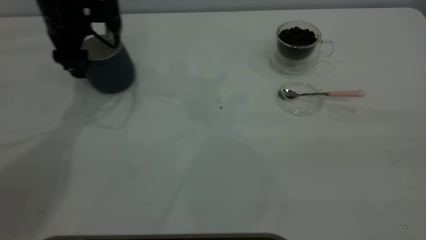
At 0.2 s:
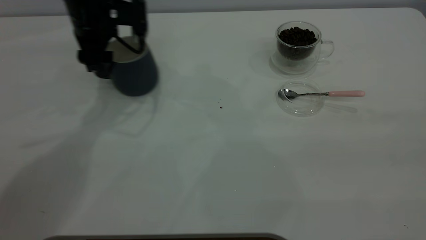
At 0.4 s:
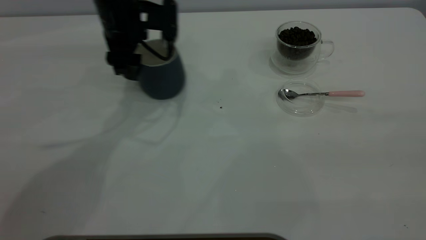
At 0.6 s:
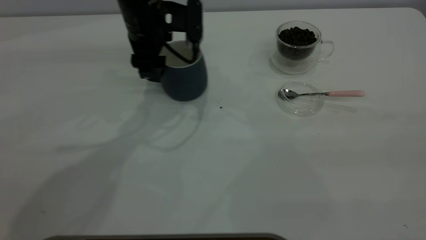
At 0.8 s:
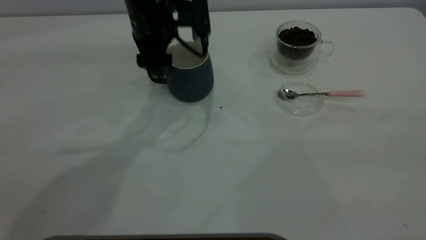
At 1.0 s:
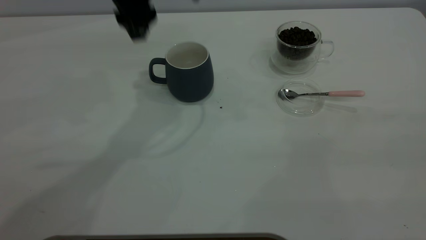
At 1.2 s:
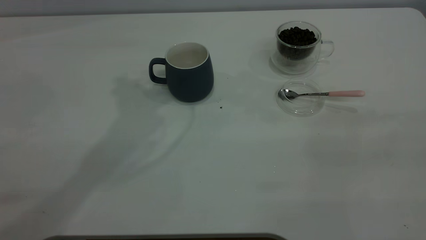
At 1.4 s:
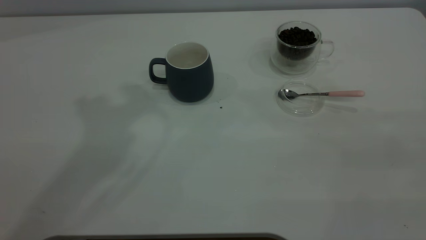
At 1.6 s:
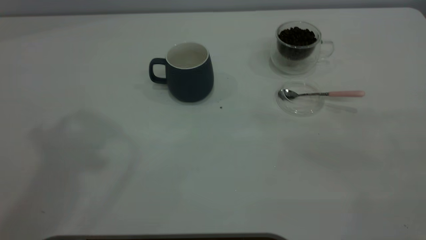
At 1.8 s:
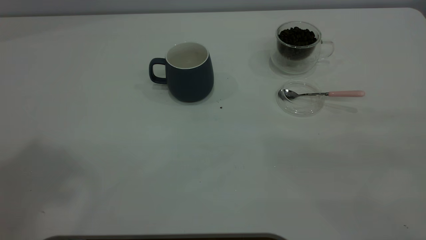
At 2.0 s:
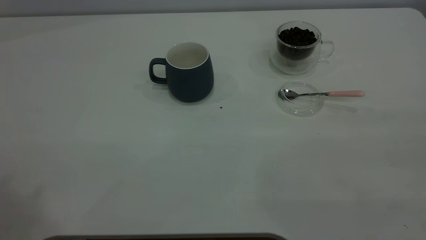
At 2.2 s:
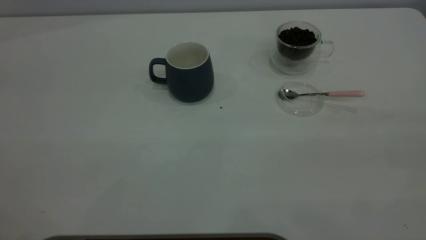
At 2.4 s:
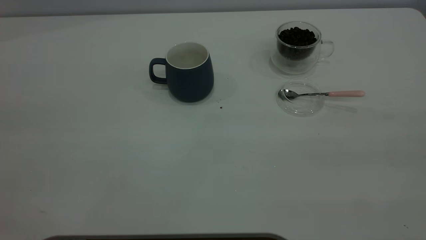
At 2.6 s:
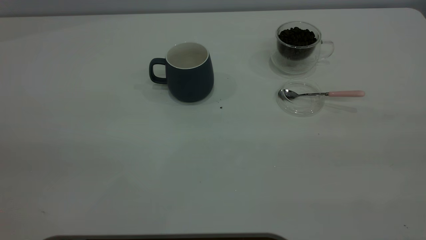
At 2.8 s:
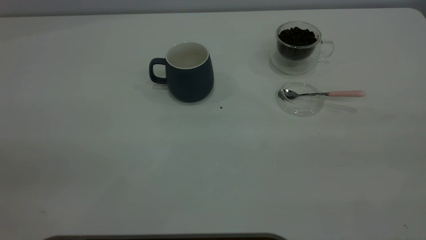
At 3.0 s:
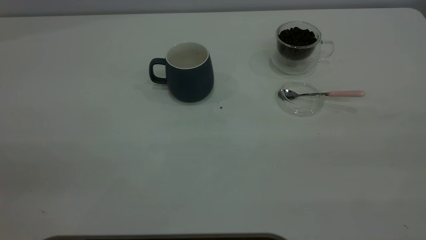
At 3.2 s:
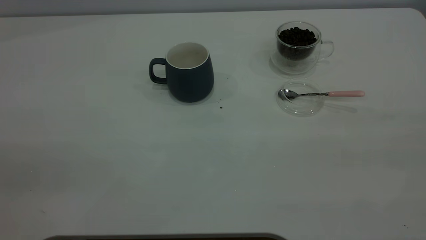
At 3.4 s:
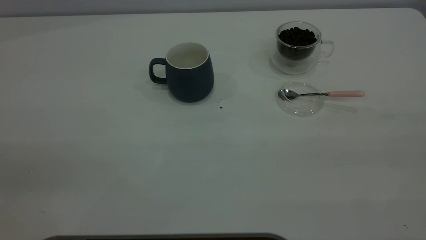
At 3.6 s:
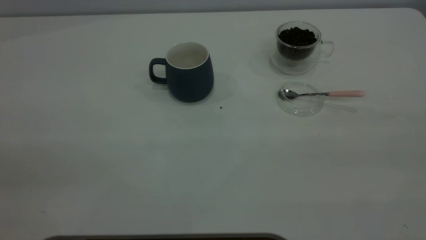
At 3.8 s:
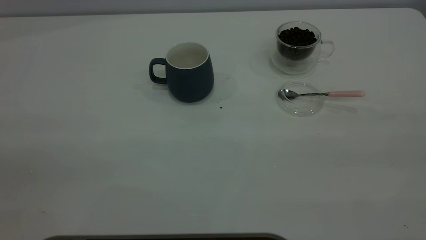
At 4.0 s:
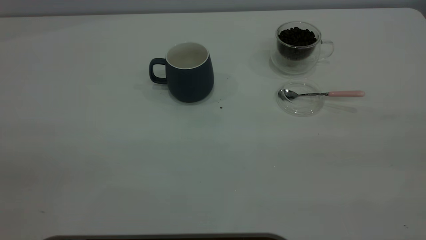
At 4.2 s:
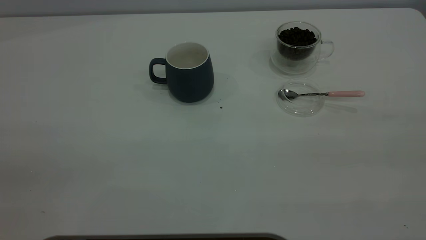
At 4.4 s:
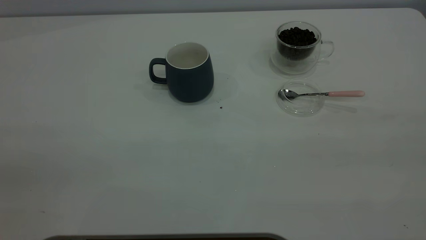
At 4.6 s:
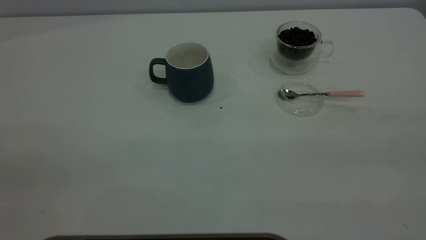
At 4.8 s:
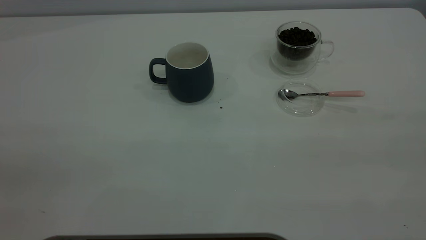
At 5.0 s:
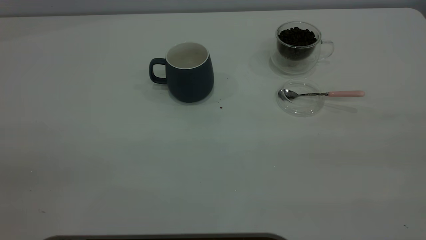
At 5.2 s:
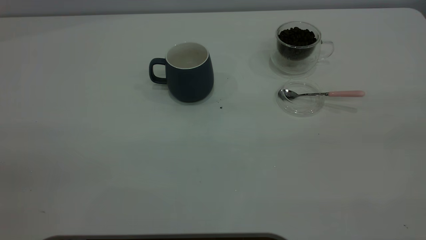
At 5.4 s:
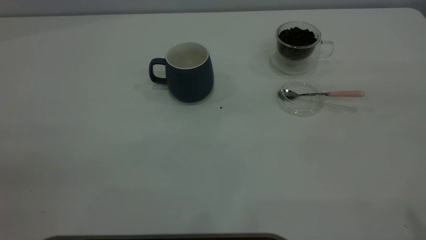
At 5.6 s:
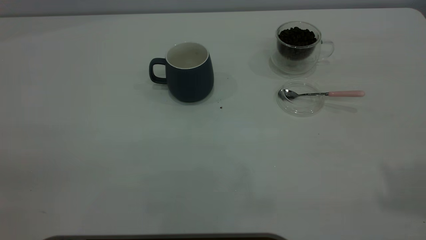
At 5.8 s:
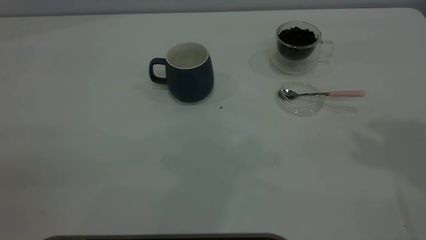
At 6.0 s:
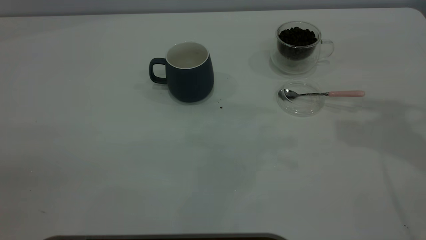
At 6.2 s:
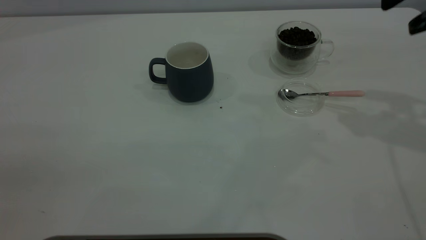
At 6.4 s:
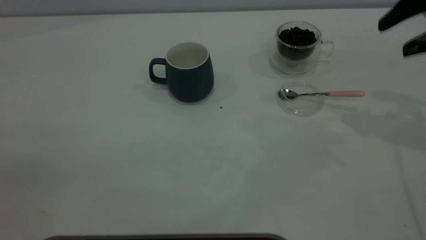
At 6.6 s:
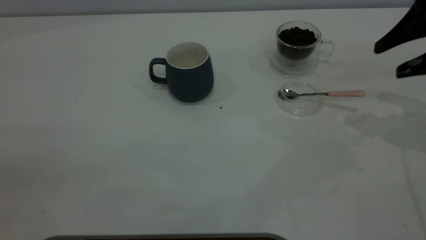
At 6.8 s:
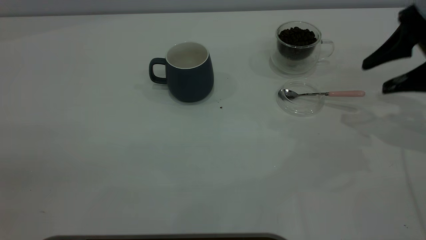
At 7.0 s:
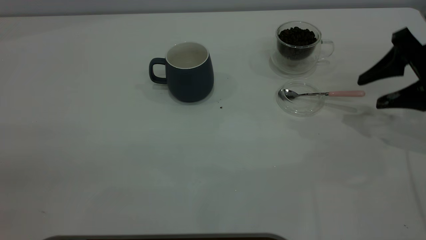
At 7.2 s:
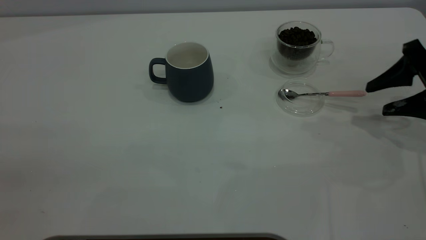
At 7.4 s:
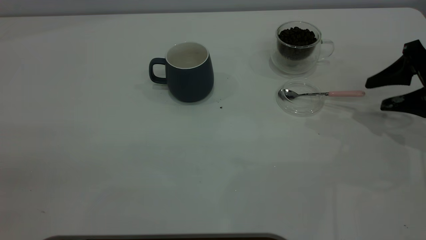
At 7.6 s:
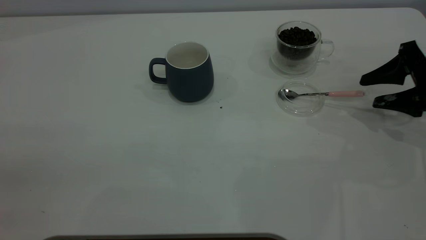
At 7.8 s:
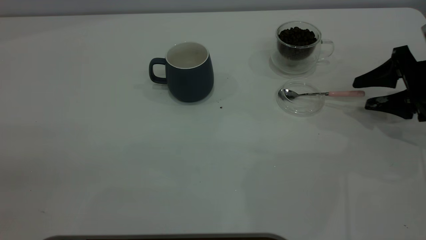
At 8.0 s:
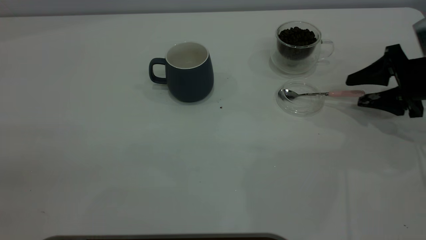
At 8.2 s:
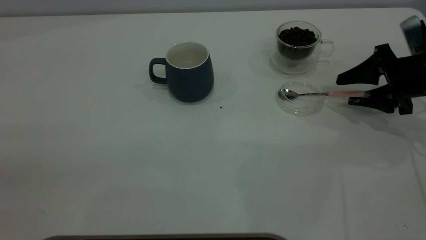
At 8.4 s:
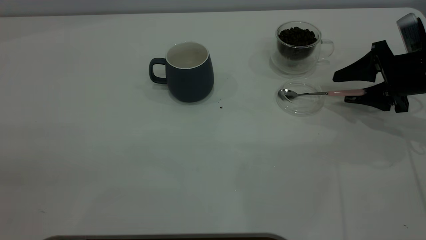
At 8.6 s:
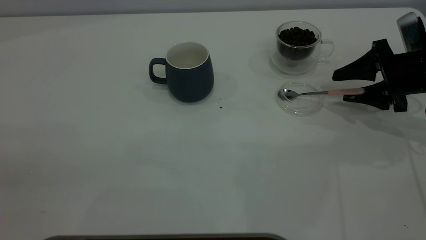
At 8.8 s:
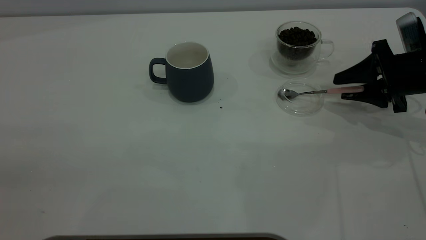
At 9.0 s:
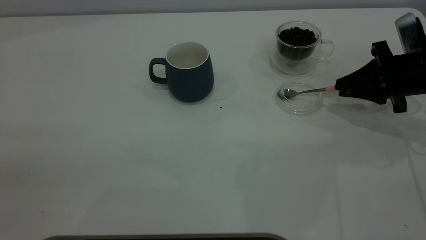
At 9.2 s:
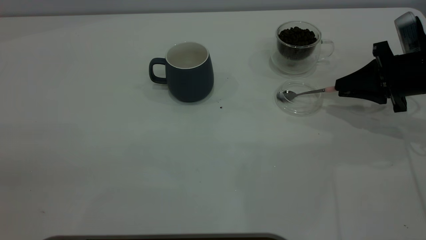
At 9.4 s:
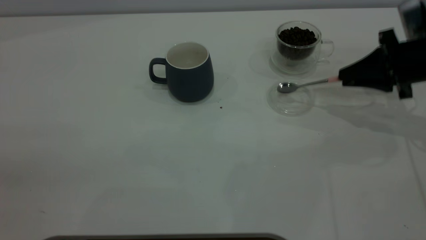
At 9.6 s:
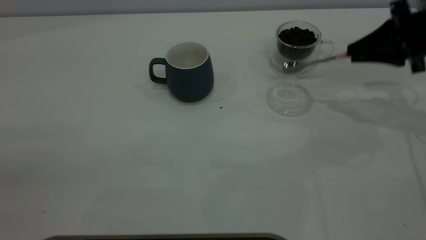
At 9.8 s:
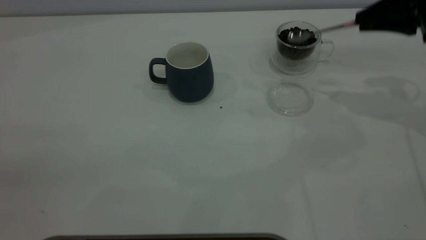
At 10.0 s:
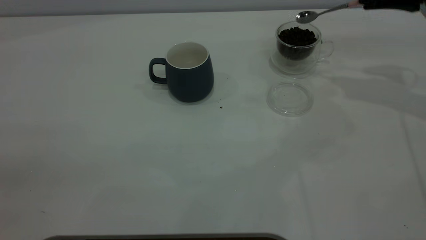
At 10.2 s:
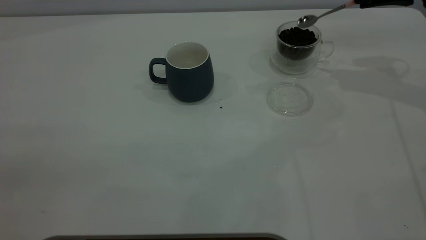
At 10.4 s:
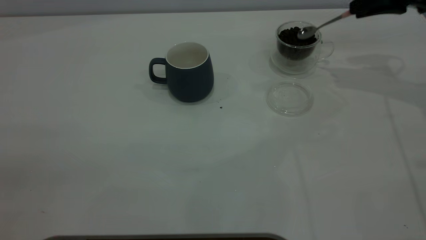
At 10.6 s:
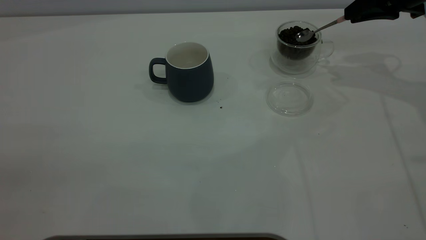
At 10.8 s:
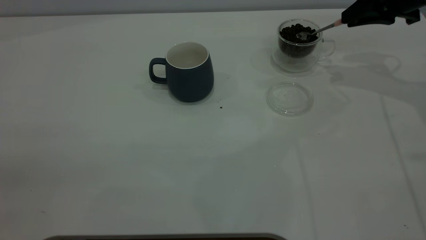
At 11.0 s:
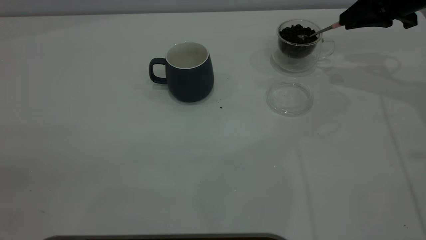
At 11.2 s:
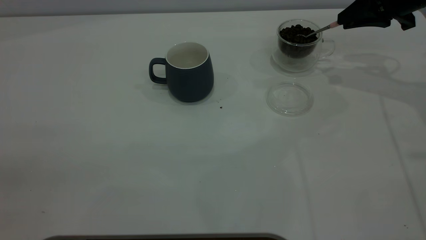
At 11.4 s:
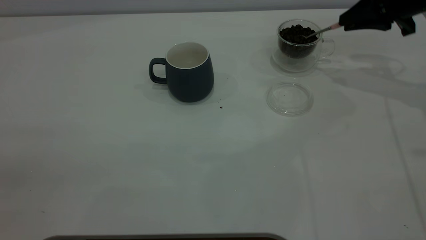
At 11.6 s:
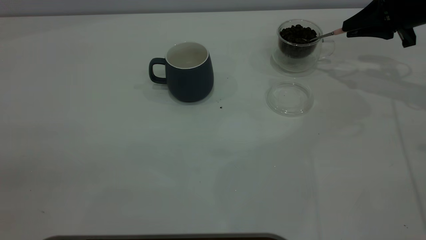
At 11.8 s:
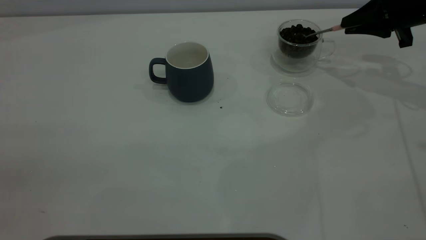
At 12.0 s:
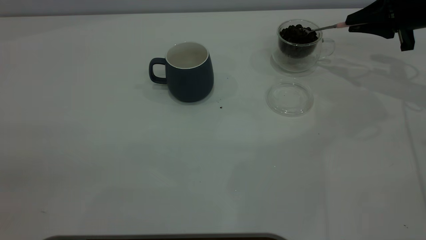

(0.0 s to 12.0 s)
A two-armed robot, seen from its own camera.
Task of the whole recording: the left gripper place the grey cup in the center of the table, the right gripper take the pink spoon from the cup lid and scoop out the coffee beans from the coffee cup and put them into the grey cup, the right gripper put the spoon back into the cup lid.
Step, 1.0 s - 9.4 s: Pick up the spoon.
0.0 s - 1.6 s: The left gripper goes about 40 cm upward and backward.
6.0 s - 7.6 s: The right gripper moves downward, some 25 cm.
7.6 s - 9.0 s: The right gripper closes.
9.0 s - 10.4 s: The right gripper heads upward and forward, covering about 15 cm.
10.4 s - 12.0 s: The right gripper is displaced downward by roughly 5 cm.

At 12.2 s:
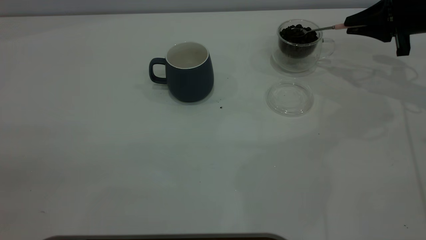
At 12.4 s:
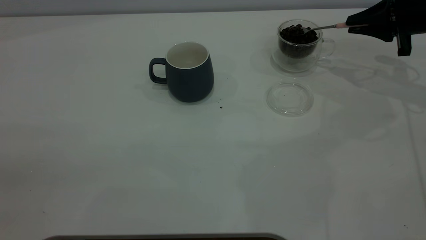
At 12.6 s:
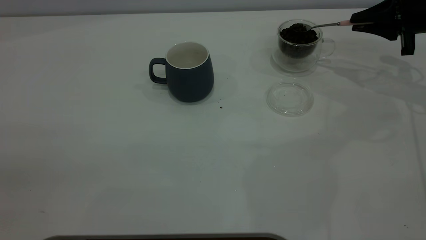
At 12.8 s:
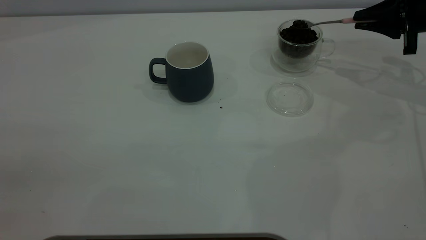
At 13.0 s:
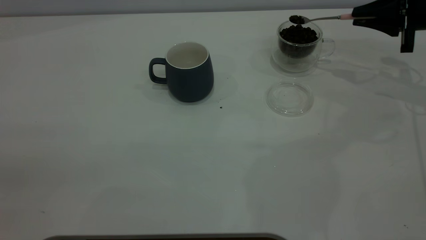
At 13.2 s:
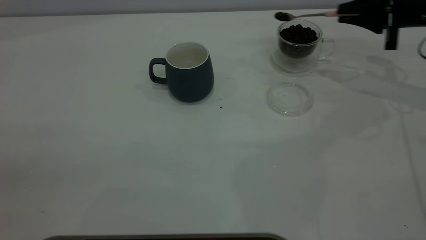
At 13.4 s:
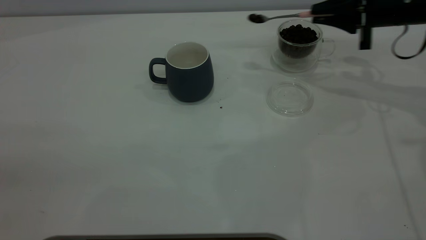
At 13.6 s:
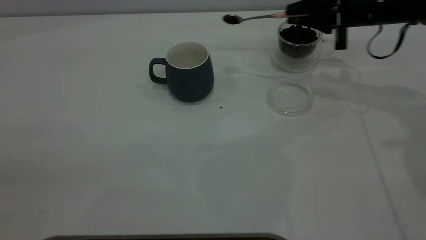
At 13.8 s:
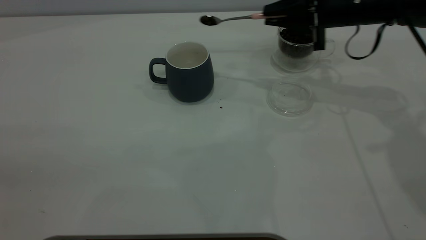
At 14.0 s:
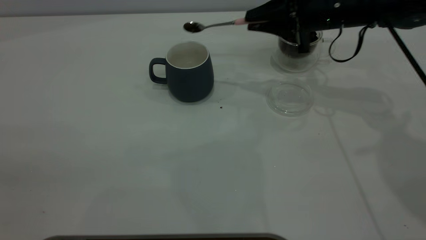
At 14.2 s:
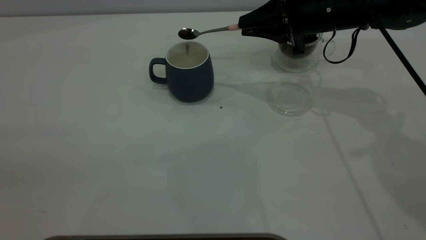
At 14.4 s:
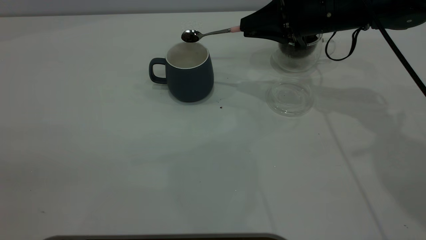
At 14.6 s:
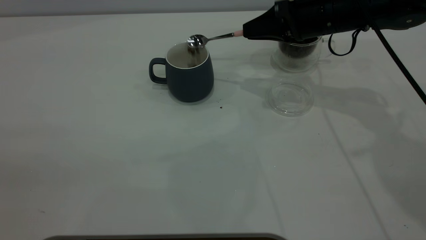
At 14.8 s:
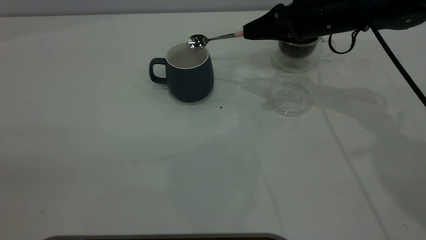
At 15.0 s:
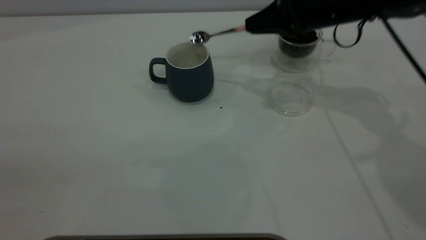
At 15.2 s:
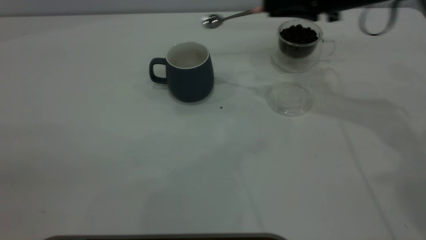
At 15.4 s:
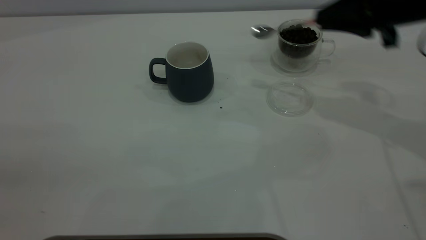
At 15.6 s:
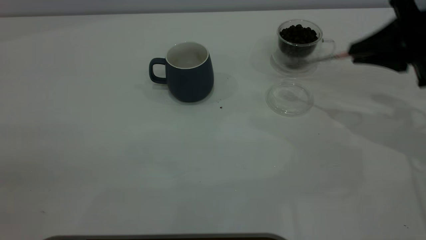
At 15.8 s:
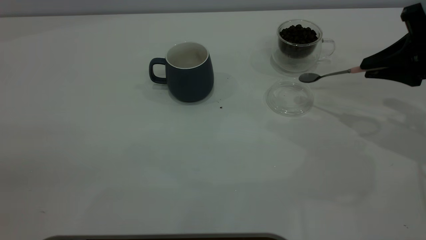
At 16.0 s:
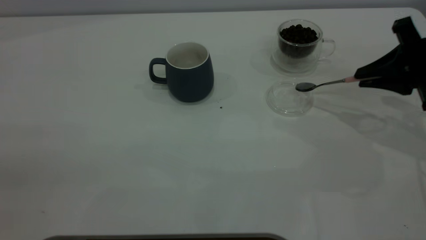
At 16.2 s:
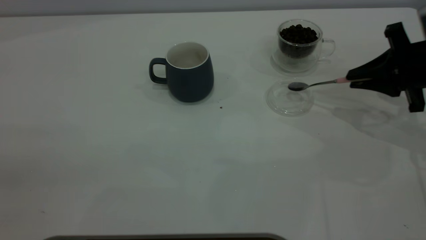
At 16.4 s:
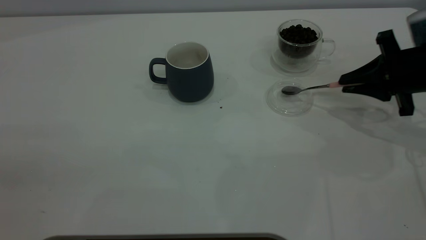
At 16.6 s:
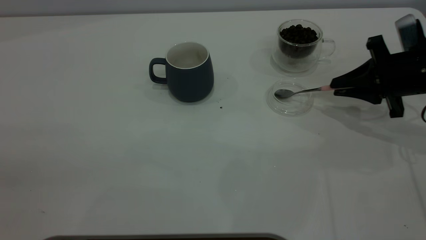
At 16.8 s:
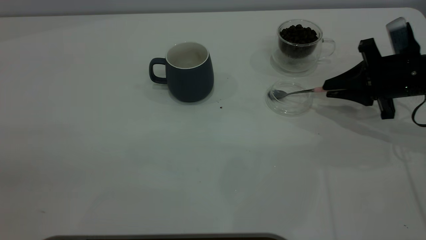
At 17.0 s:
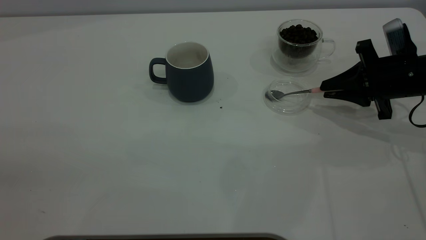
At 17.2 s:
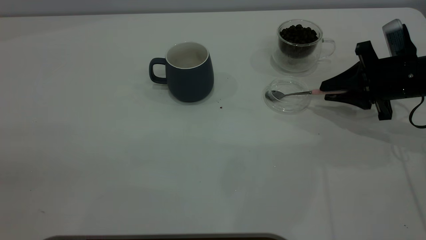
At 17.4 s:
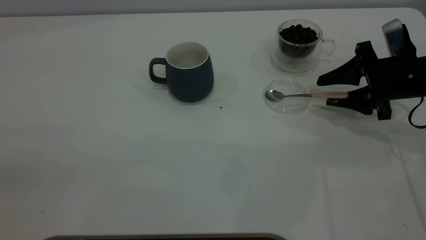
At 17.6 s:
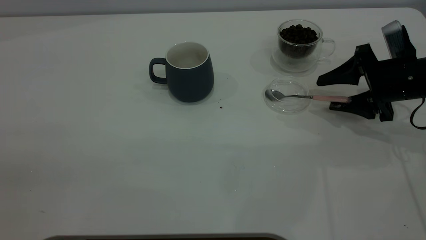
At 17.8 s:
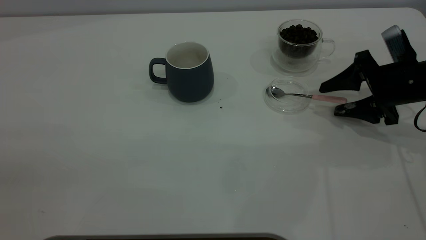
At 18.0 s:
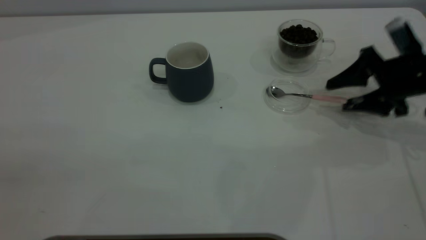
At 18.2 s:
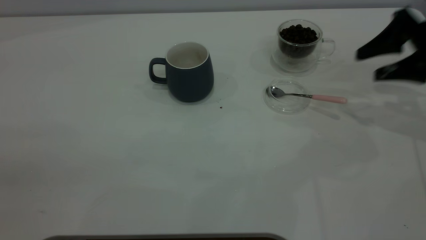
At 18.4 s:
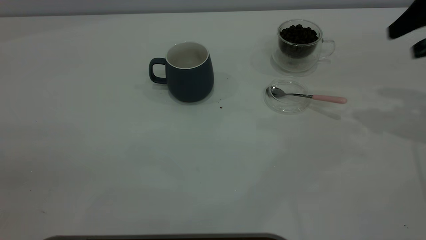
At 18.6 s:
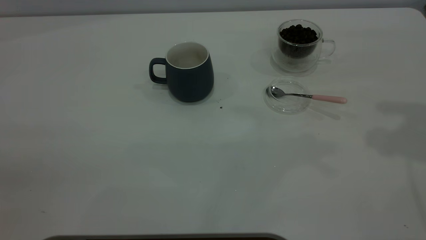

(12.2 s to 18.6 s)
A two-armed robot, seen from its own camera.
Task of the whole recording: the left gripper place the grey cup in the center of the table, the right gripper take the pink spoon from the cup lid and scoop out the coffee beans from the coffee cup and put them into the grey cup, the right gripper put the spoon back into the cup lid.
Step, 12.2 s - 15.0 s: Scoop a spoonful of beans into the cup.
Step, 15.2 s - 18.0 s: Place the spoon back in its original place.
12.2 s - 13.8 s: The right gripper travels to the left by some 15 cm.
13.8 s - 15.4 s: The right gripper heads backward and to the right, covering some 10 cm.
15.4 s - 17.0 s: The right gripper heads downward, covering roughly 10 cm.
17.0 s - 18.6 s: The right gripper goes about 25 cm upward, and opens its fingers.
